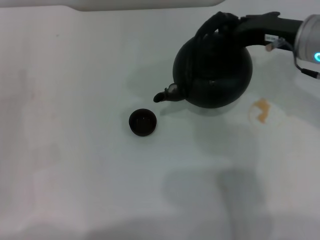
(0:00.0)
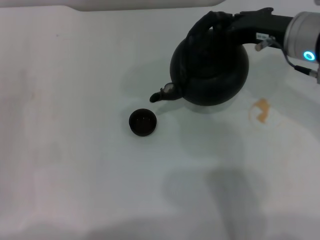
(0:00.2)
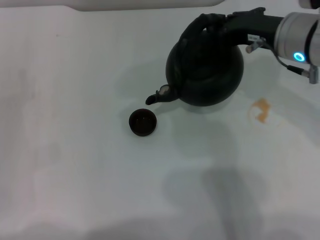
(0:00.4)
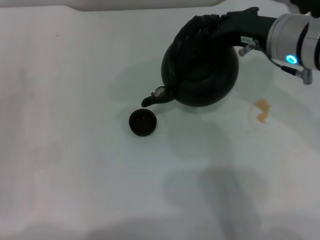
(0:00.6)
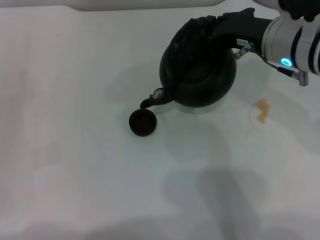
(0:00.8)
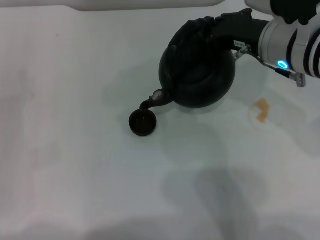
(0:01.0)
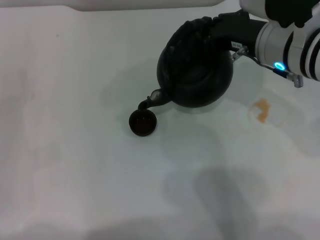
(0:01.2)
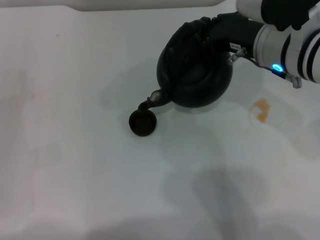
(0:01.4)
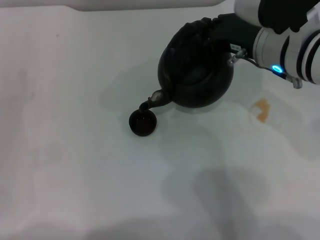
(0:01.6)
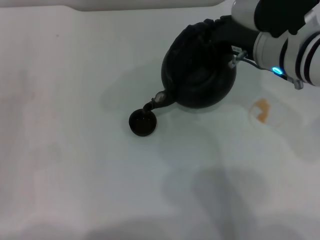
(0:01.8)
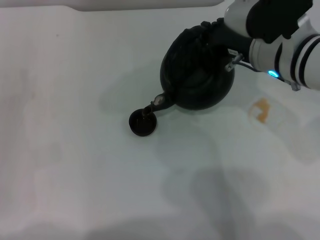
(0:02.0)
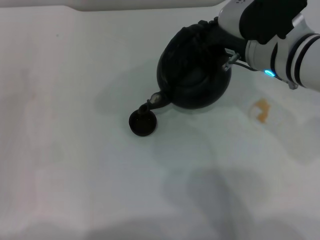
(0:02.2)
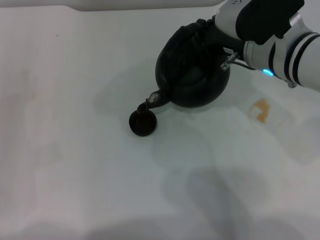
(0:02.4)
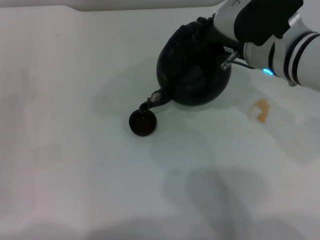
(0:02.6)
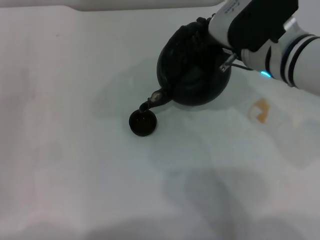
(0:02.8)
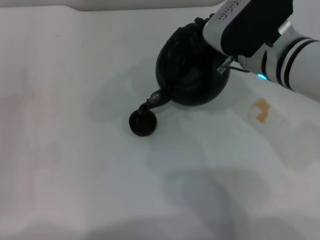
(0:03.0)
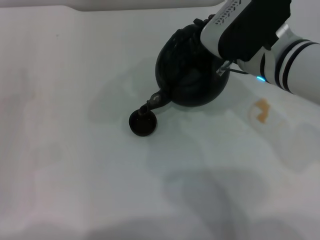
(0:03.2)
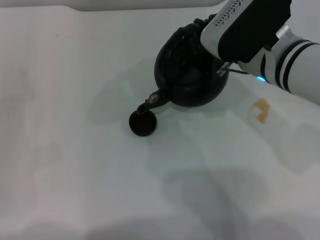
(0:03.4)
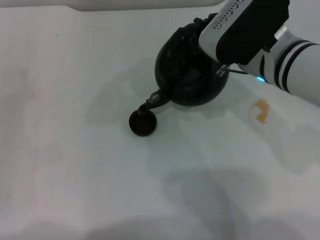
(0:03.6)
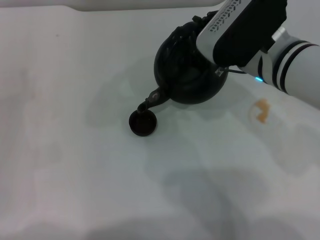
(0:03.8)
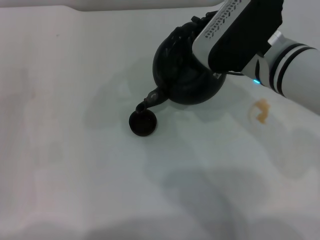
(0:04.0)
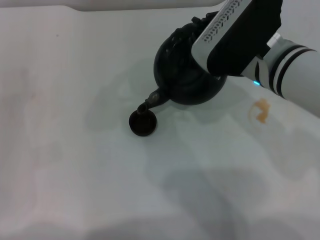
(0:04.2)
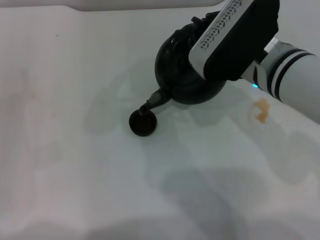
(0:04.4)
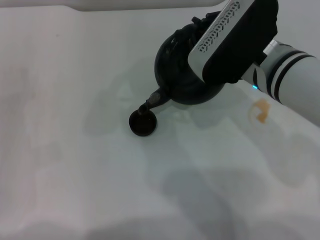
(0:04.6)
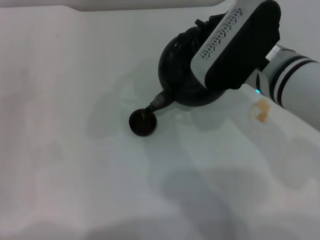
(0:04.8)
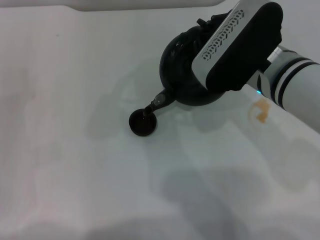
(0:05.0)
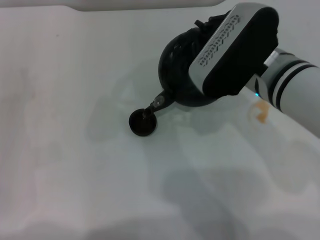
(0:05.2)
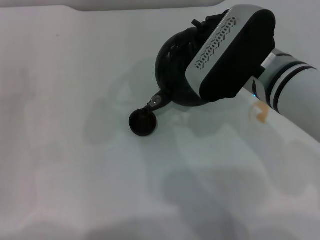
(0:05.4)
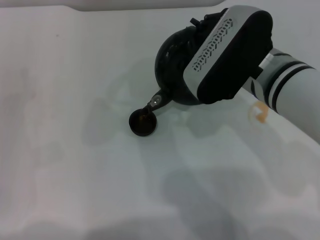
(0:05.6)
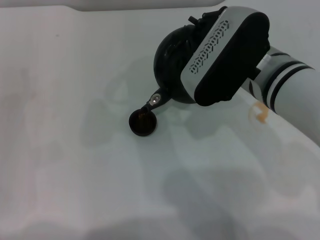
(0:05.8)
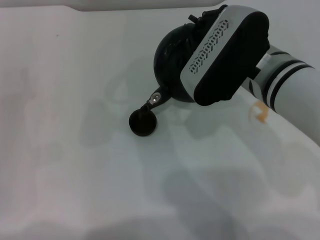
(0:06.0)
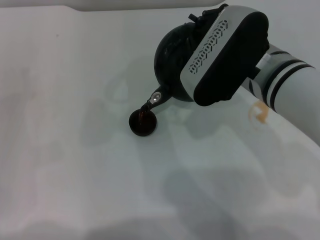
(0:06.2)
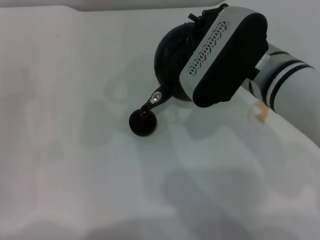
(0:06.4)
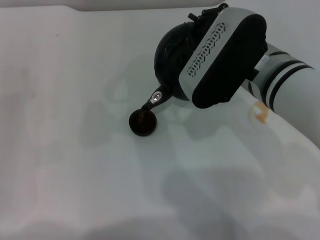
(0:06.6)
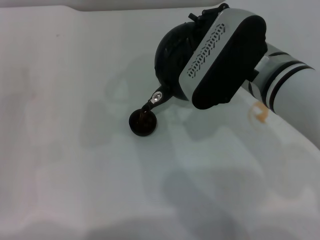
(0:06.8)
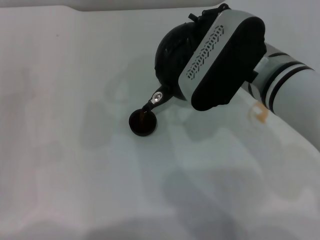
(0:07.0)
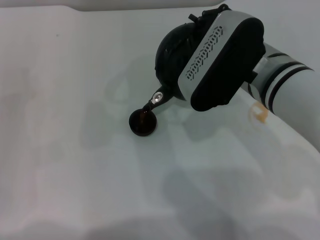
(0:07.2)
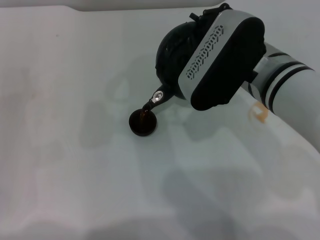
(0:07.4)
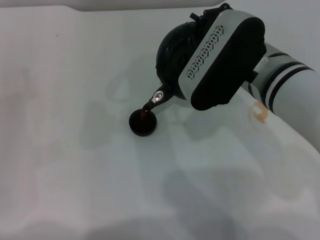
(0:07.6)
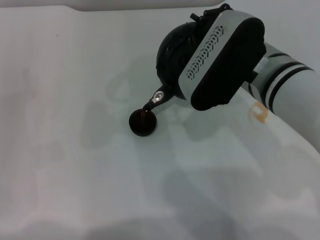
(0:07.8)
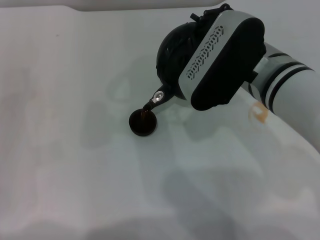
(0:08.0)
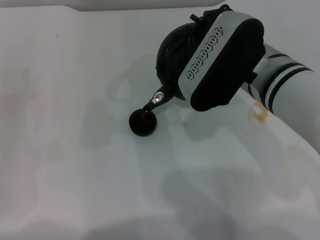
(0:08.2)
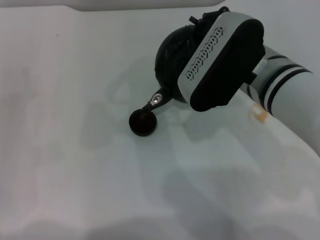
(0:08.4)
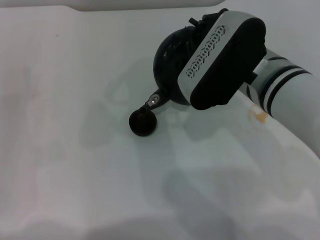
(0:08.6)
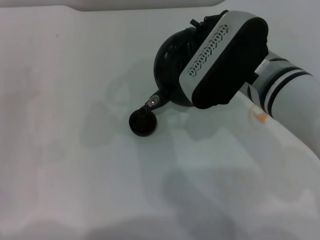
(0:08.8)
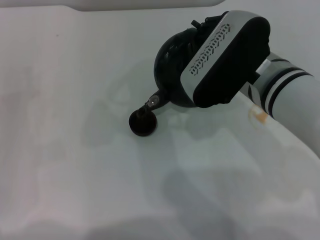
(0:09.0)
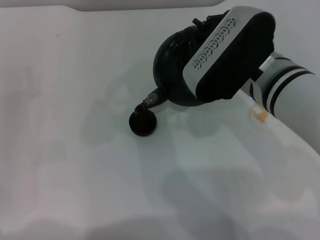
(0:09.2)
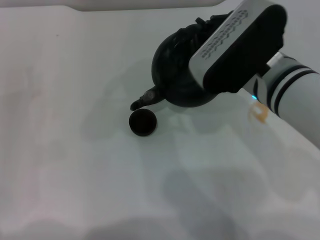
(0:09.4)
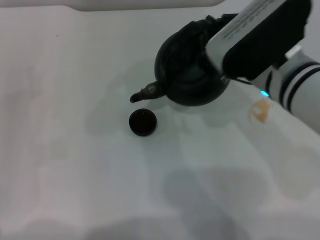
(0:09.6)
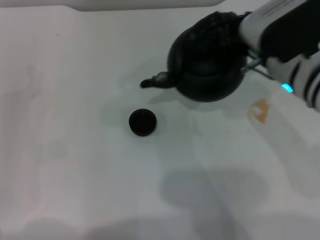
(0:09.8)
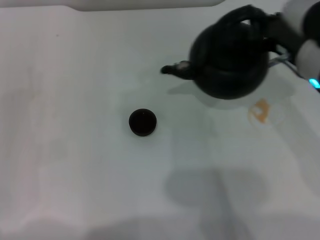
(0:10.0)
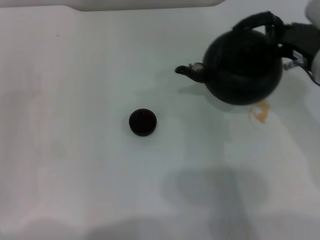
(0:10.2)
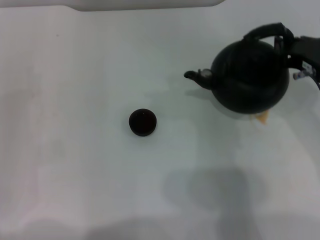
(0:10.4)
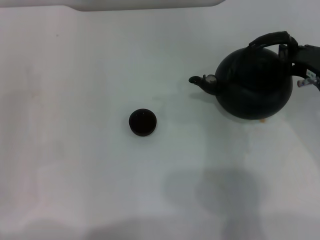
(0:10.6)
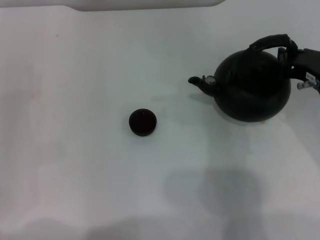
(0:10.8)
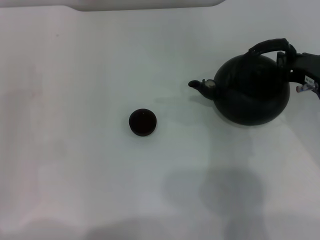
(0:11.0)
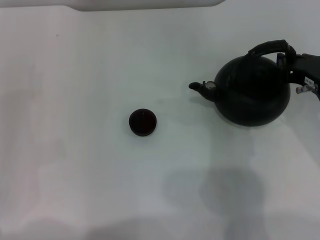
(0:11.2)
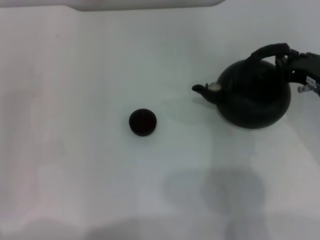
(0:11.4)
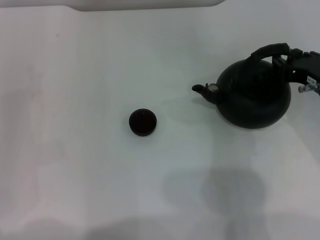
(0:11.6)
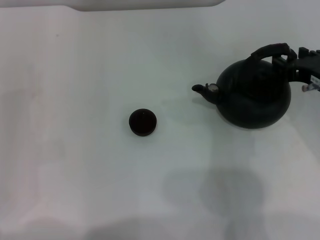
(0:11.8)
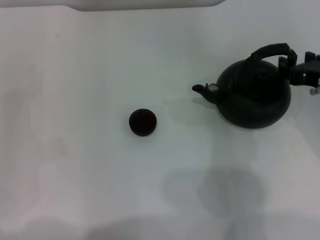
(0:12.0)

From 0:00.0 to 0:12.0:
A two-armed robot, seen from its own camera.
Task of the whole recording: Grasp the handle of the teapot with one hand and pour tea into the teacup.
Step, from 0:00.0 to 0:09.4: Pour tea into the teacup with the right gripper.
Step, from 0:09.6 to 0:12.0: Put down the teapot with the right gripper.
From 0:00.0 to 0:01.6: The right gripper heads to the left, covering about 5 cm.
From 0:01.6 to 0:03.0: There are only small adjustments of the grippers.
From 0:03.0 to 0:06.0: There are only small adjustments of the grippers.
From 0:06.0 to 0:07.6: Both grippers stay about where they are.
From 0:07.6 to 0:09.0: The grippers make only small movements.
From 0:09.0 to 0:10.4: The right gripper moves to the right, roughly 10 cm.
From 0:10.4 to 0:12.0: The right gripper opens up.

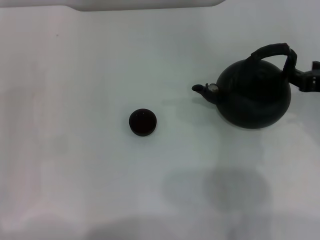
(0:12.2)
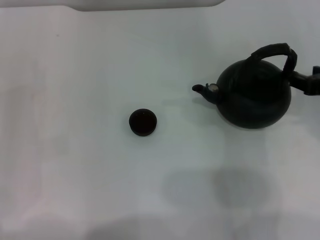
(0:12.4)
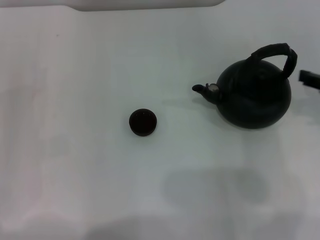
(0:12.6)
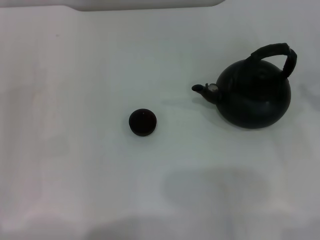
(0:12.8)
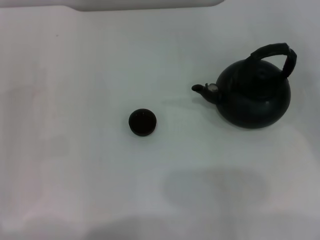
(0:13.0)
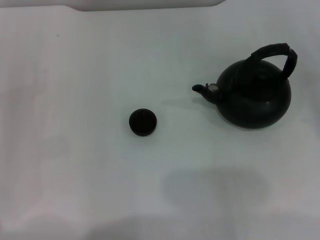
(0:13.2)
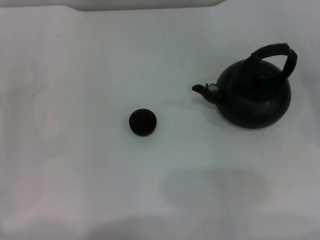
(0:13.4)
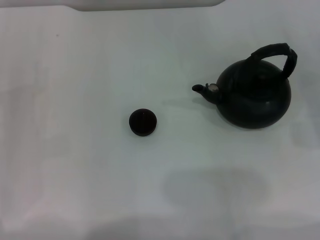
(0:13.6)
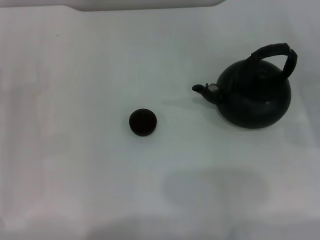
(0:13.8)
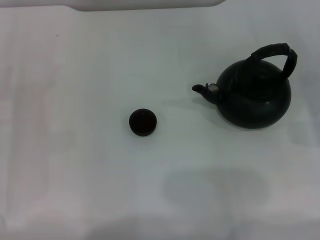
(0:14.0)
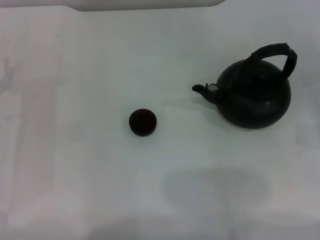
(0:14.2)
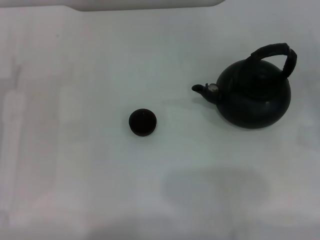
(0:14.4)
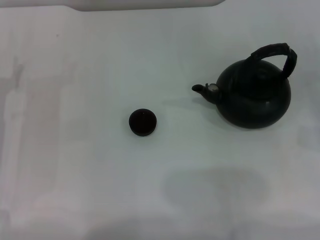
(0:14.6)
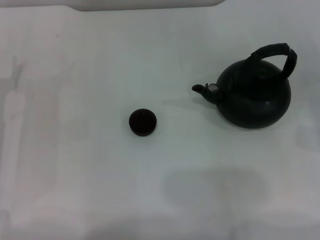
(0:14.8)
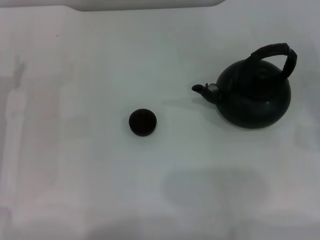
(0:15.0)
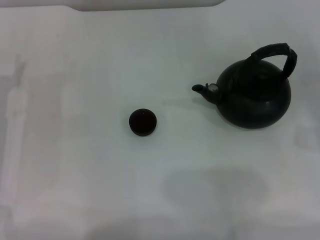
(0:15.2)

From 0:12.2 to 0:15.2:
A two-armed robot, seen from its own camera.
Task of the whole recording: Grasp the handle of the teapot with one hand and pour tea into the teacup.
From 0:12.2 to 0:13.8: The right gripper is displaced to the right and downward by about 15 cm.
